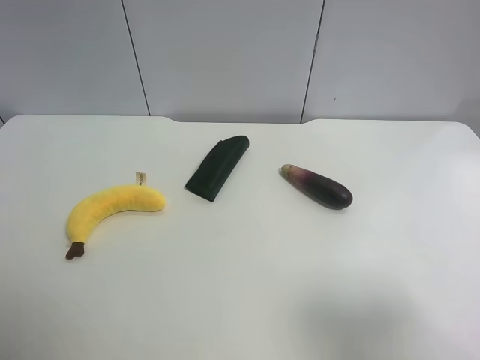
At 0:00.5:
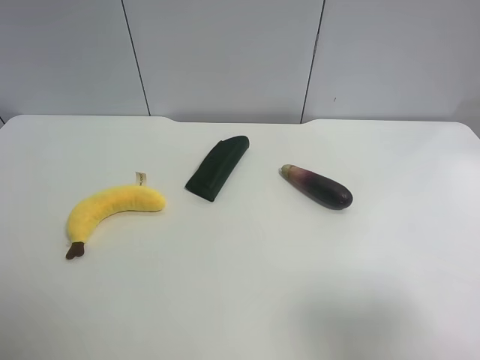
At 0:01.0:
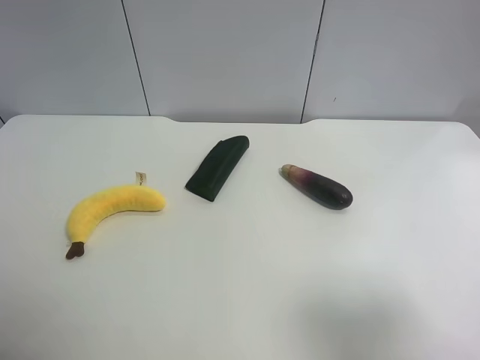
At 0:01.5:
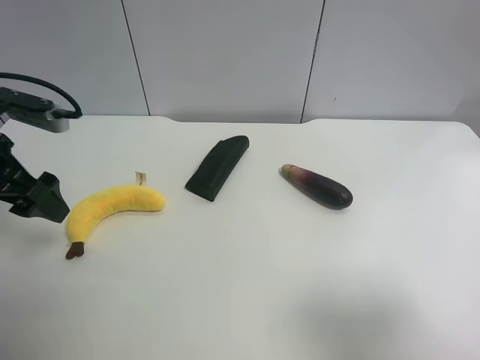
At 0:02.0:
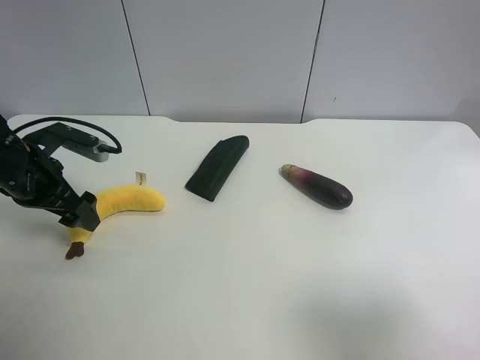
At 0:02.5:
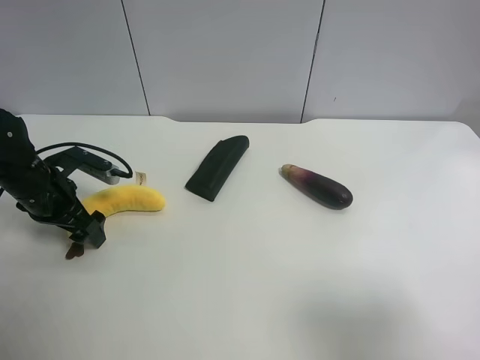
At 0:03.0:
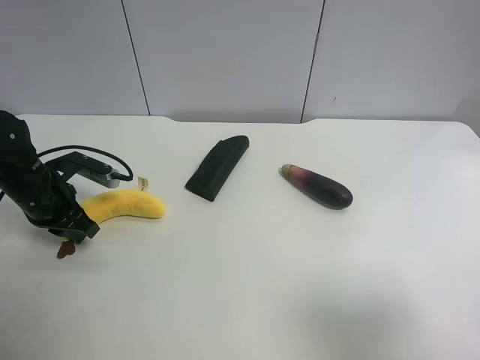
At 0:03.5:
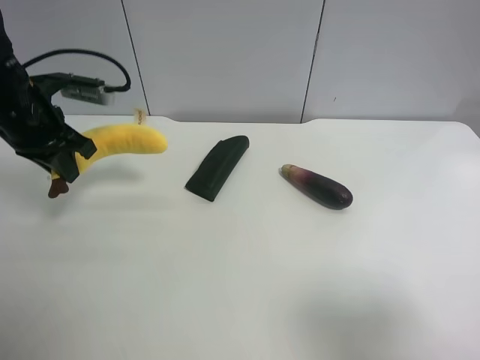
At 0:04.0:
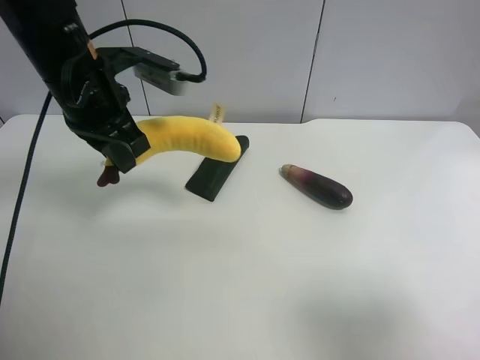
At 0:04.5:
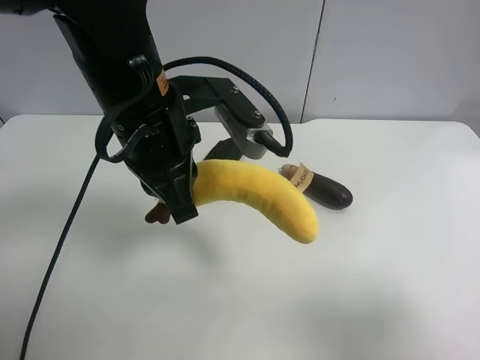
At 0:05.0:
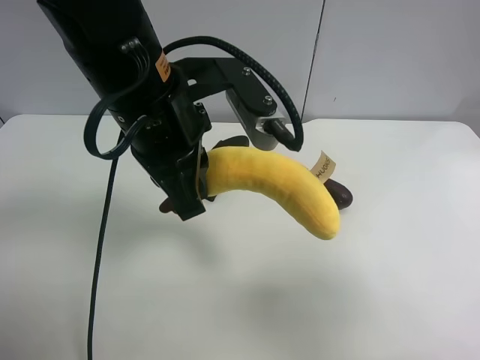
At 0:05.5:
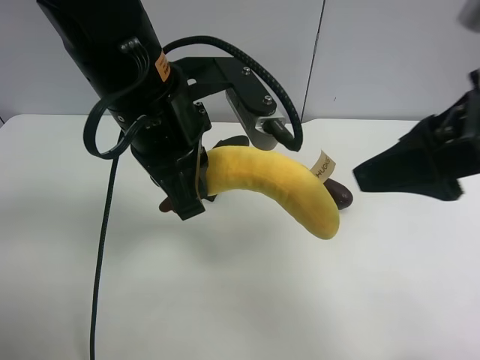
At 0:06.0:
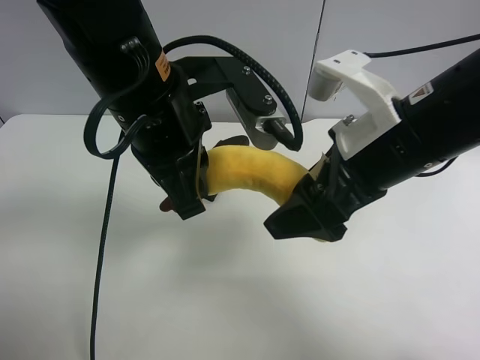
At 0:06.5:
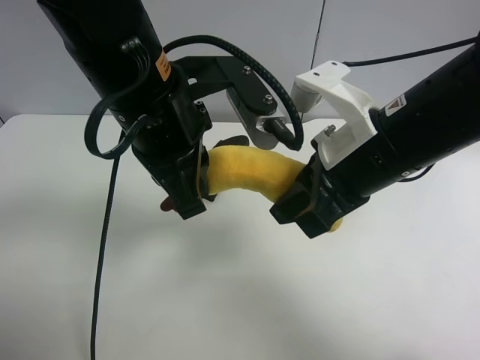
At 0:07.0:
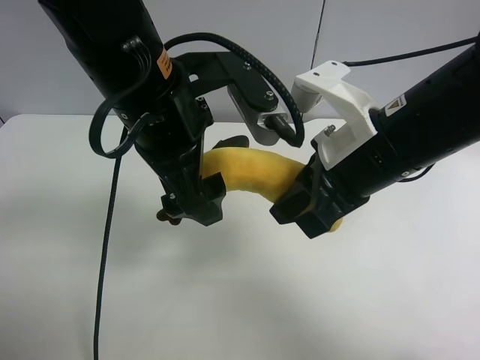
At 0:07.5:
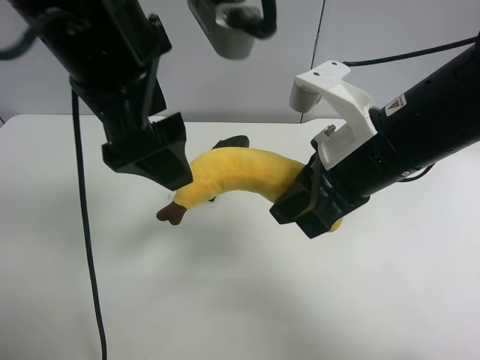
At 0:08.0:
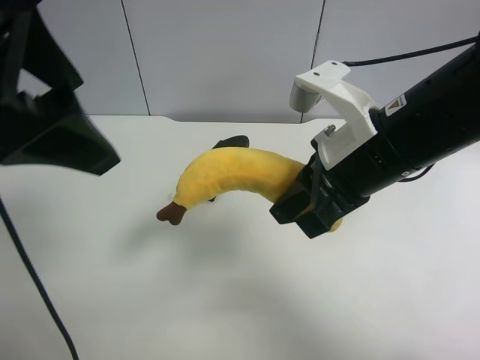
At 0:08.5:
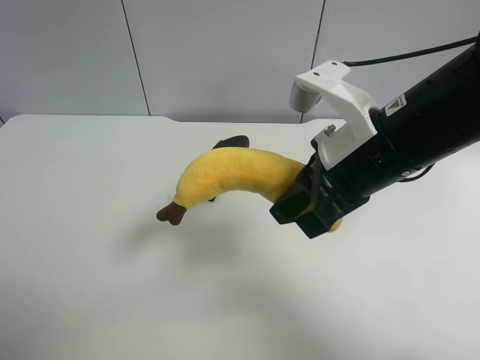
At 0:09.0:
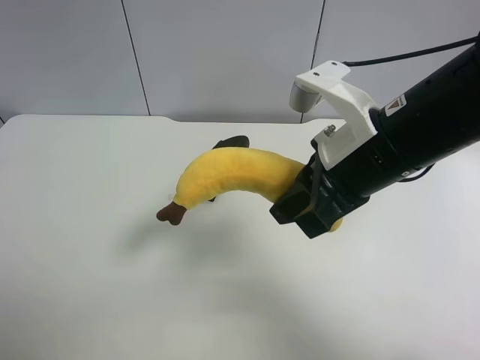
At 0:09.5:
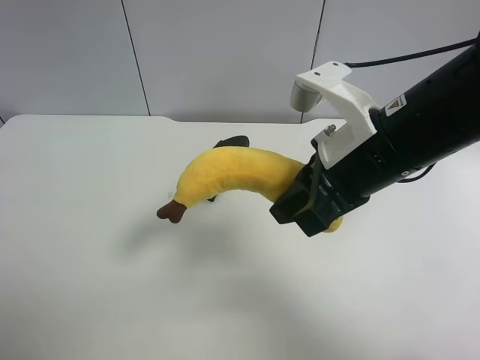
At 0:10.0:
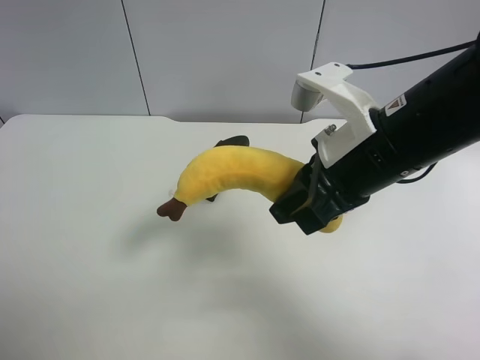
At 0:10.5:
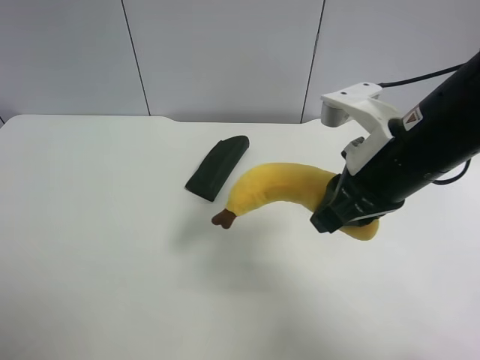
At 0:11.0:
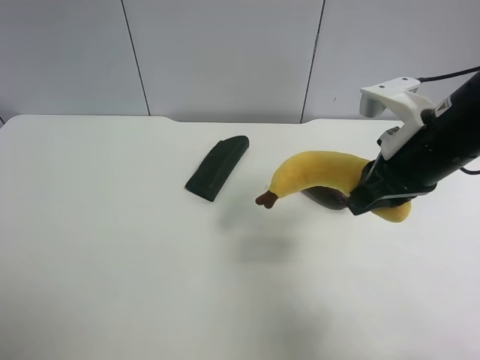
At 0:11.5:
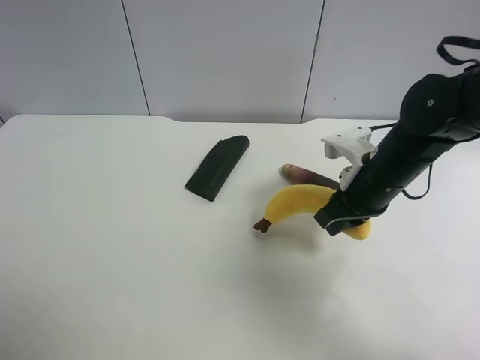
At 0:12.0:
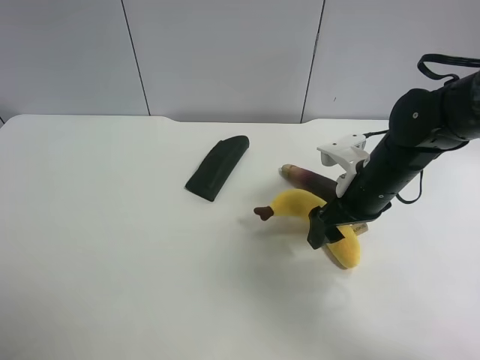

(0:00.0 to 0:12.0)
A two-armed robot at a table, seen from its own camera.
Task of the whole recording: use the left gripper to pick up the item and transfer it from the left gripper to the right gripper.
0:00.0 - 0:02.0: The left gripper is displaced forward and downward by approximately 30 cm.
0:02.0 - 0:04.0: The left gripper travels to the right and upward by about 20 cm, and closes up.
0:04.0 - 0:06.0: The left gripper shifts some 10 cm to the right and backward; the right gripper travels forward and to the left by some 25 cm.
0:06.0 - 0:08.0: The right gripper closes; the left gripper travels upward, to the left and backward by approximately 15 cm, and opens its fingers.
0:08.0 - 0:10.0: The left gripper moves to the left, backward and downward, approximately 25 cm.
0:10.0 - 0:12.0: The right gripper shifts some 15 cm downward, forward and to the right, and opens up.

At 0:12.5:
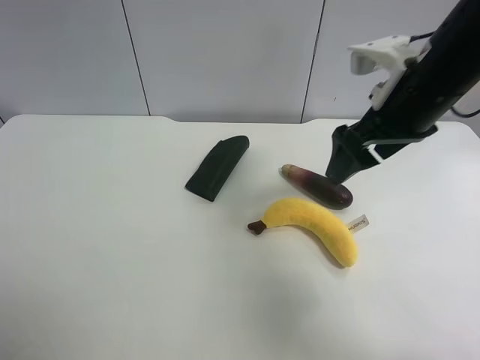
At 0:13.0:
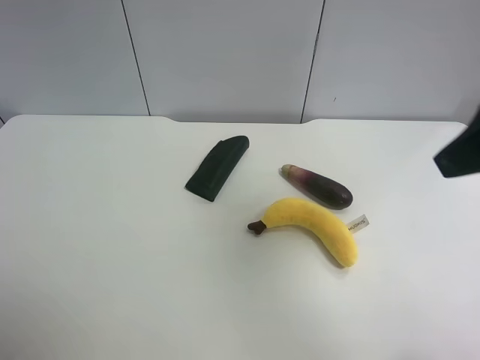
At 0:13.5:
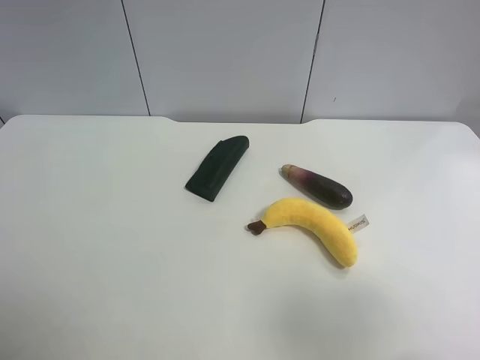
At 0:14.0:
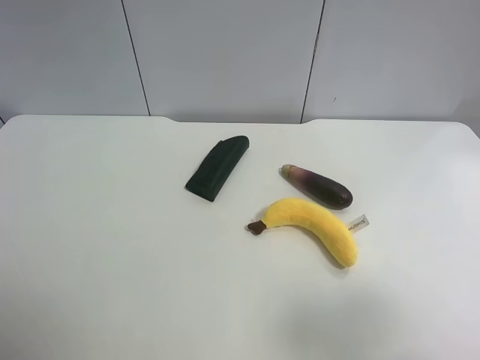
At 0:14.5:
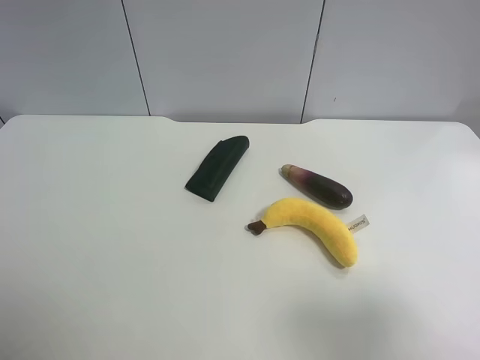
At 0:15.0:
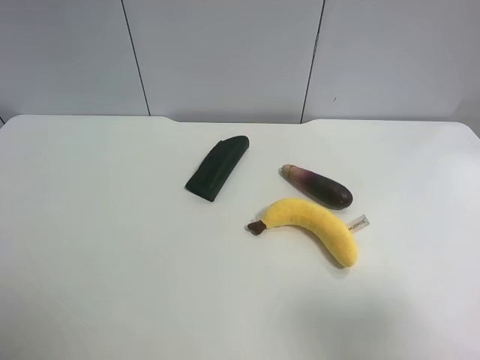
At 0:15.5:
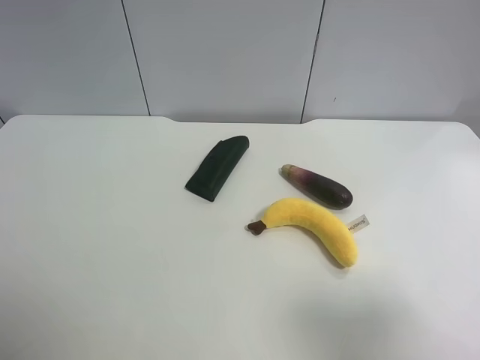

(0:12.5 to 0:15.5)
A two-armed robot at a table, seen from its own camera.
Task of the whole recording: use the left gripper to pick up the item and transfer it from the left gripper to the right gripper.
0:12.5 - 0:14.0: The right gripper is displaced backward by roughly 25 cm.

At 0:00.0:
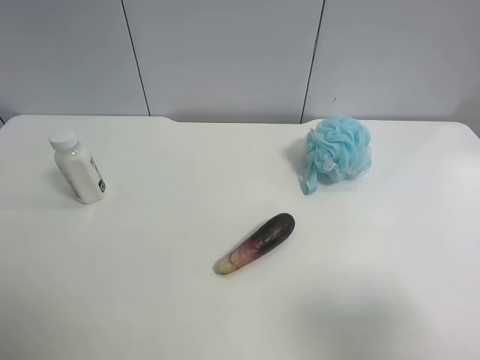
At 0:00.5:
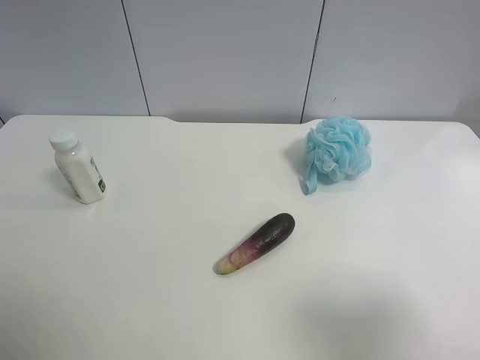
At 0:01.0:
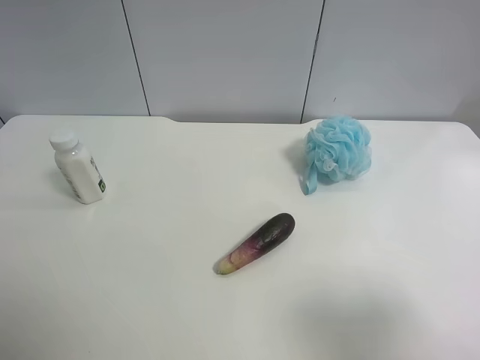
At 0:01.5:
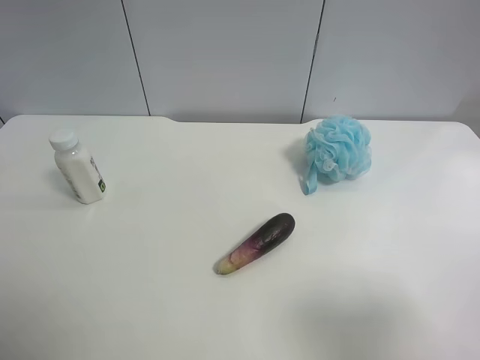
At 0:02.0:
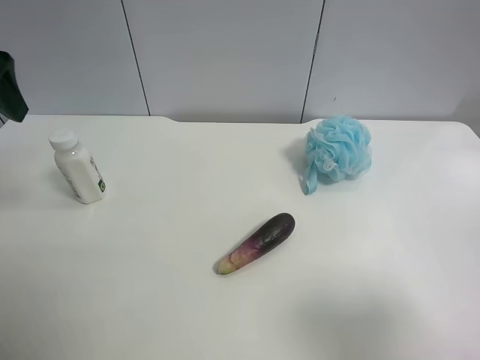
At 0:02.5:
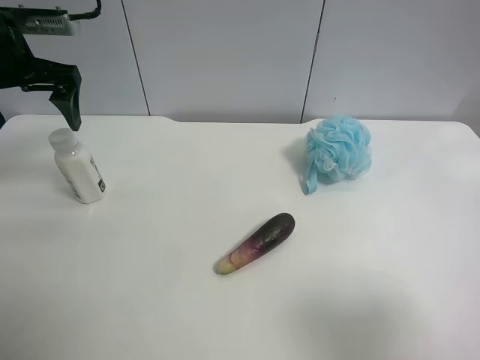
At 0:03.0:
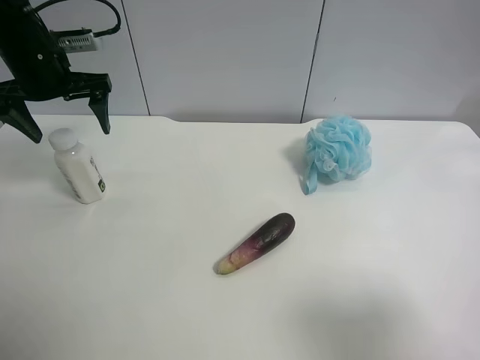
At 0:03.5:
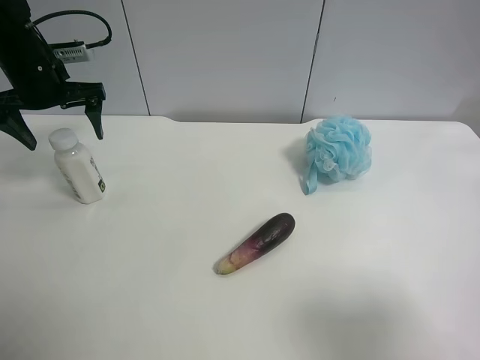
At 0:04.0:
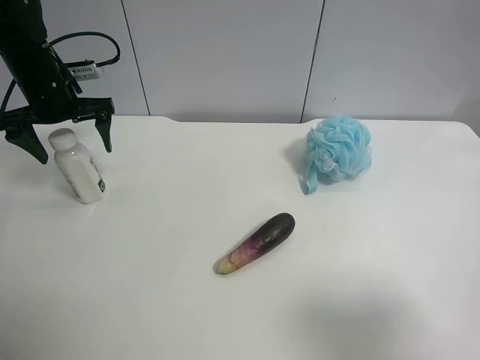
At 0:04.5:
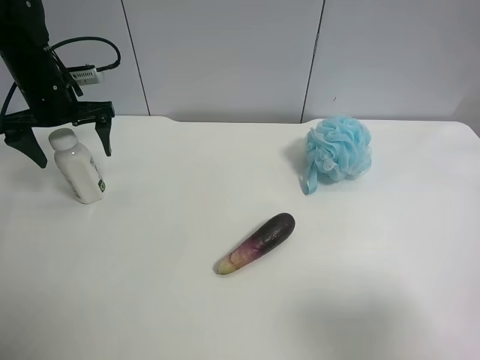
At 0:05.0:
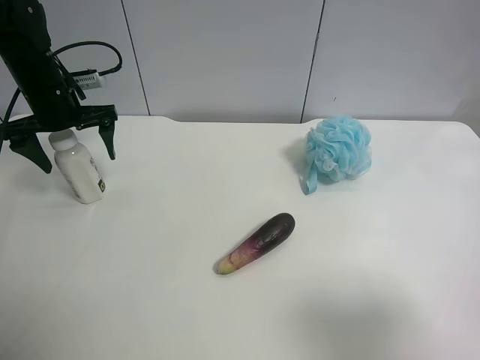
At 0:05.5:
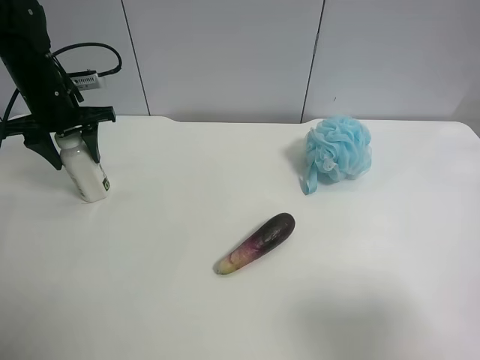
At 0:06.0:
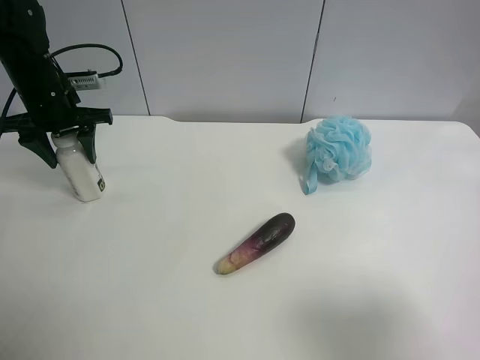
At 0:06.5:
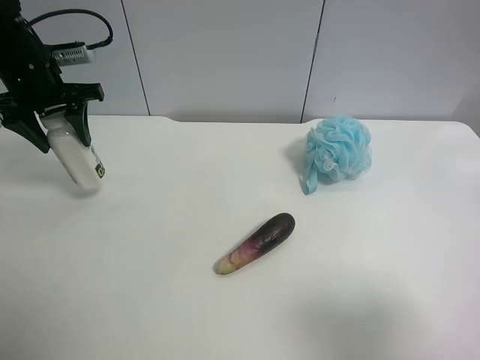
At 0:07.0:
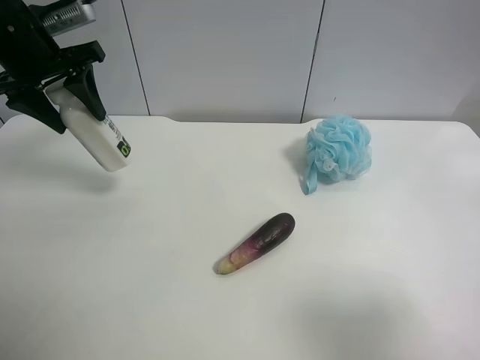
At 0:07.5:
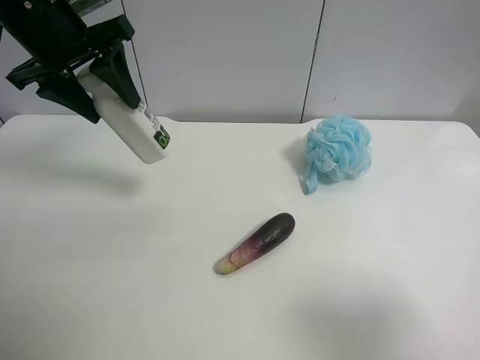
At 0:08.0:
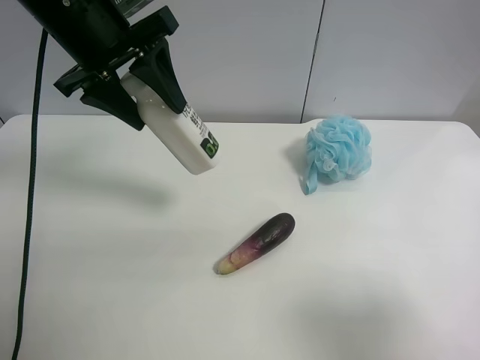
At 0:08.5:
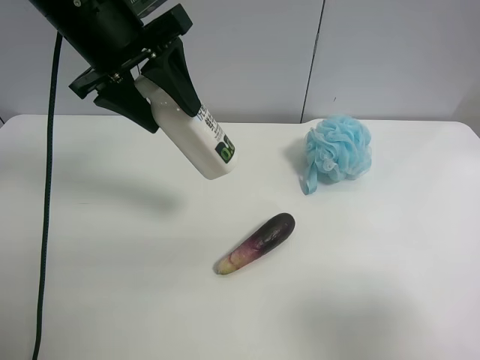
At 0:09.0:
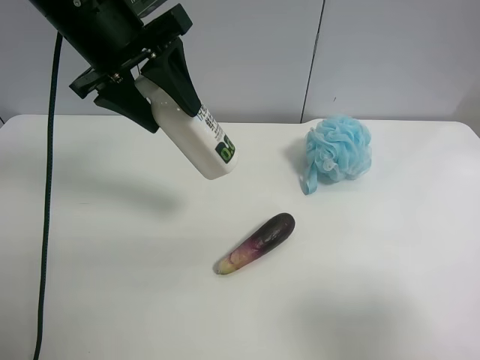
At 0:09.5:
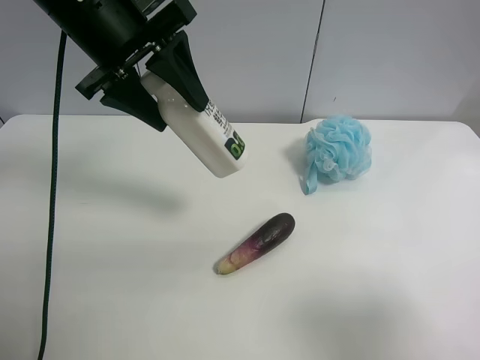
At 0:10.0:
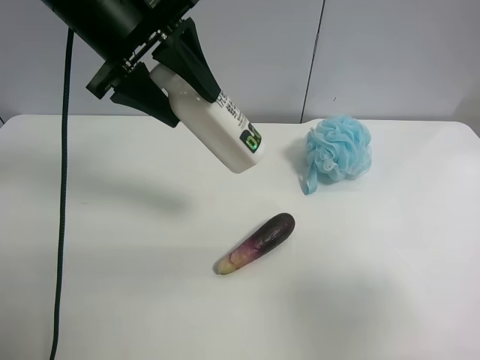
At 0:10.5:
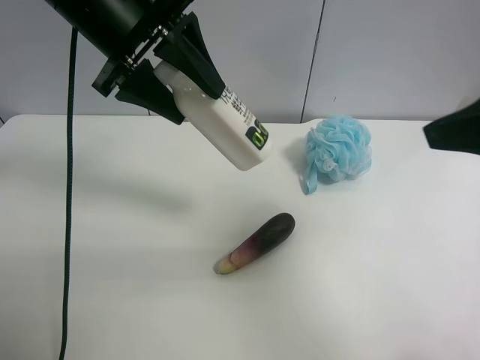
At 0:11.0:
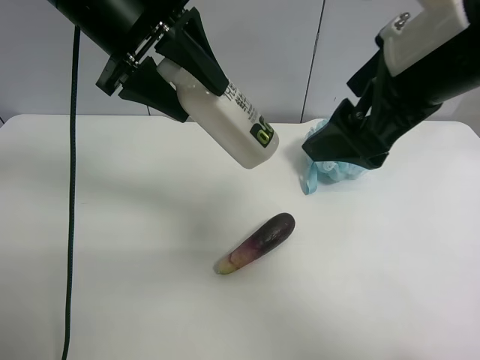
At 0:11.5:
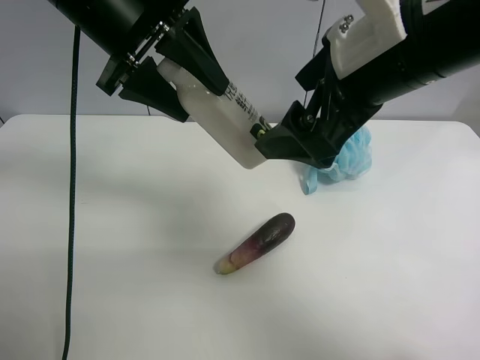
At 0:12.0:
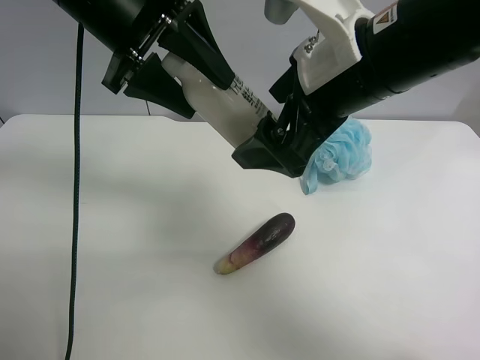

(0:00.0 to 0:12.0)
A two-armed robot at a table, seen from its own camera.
Task of the whole recording: use the left gripper to pick up the item and transfer it from the left gripper to the right gripper.
0:00.0 - 0:02.0: The left gripper shifts approximately 25 cm forward.
0:02.0 - 0:04.0: The left gripper moves forward and downward, approximately 20 cm.
0:04.0 - 0:06.0: The left gripper closes up.
0:06.0 - 0:08.0: The left gripper goes approximately 20 cm to the right, upward and backward.
0:08.0 - 0:10.0: The grippers make only small movements.
0:10.0 - 0:12.0: The right gripper heads forward and to the left, covering about 25 cm.
